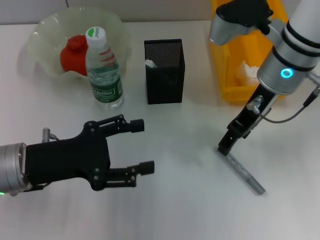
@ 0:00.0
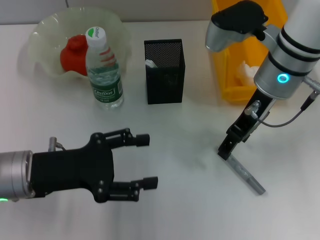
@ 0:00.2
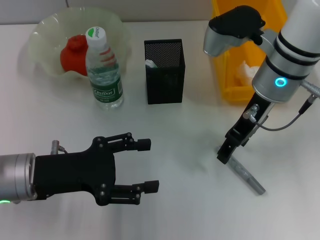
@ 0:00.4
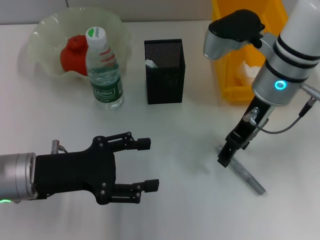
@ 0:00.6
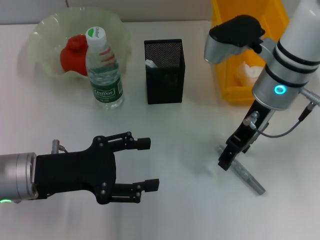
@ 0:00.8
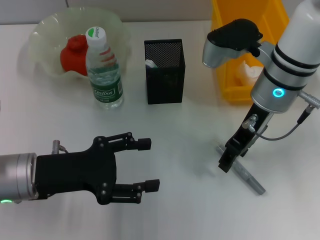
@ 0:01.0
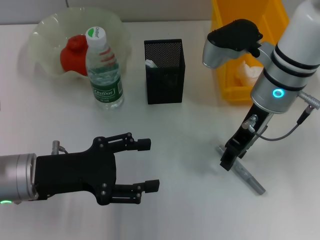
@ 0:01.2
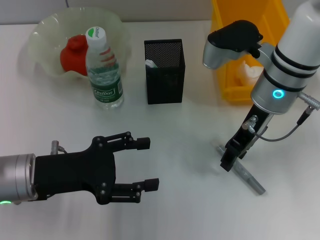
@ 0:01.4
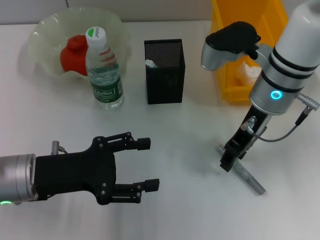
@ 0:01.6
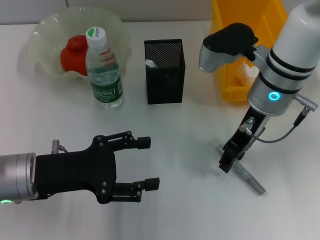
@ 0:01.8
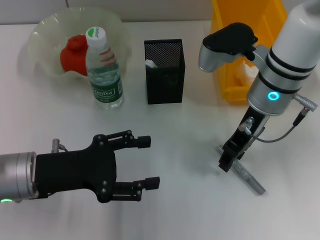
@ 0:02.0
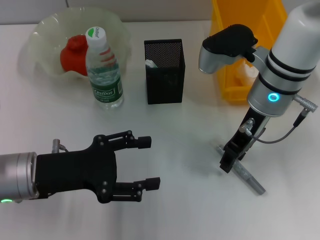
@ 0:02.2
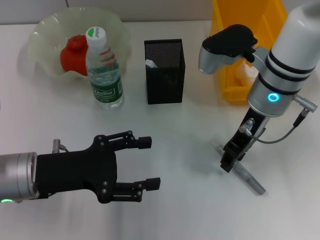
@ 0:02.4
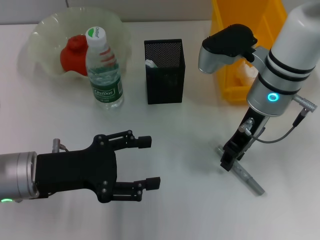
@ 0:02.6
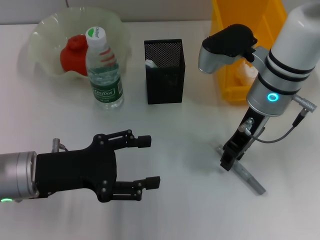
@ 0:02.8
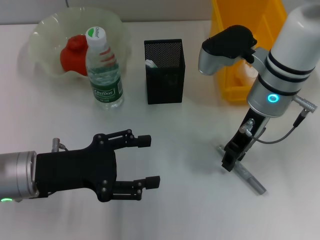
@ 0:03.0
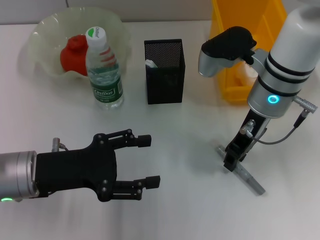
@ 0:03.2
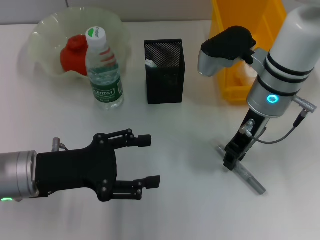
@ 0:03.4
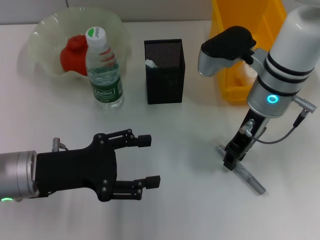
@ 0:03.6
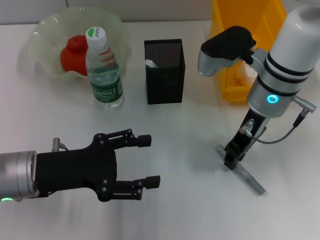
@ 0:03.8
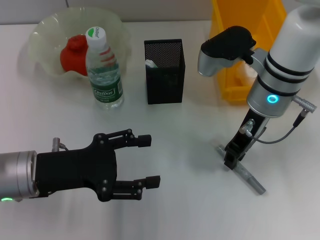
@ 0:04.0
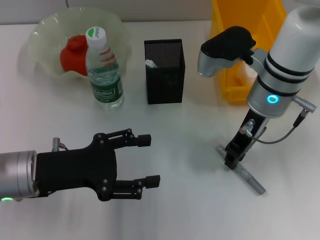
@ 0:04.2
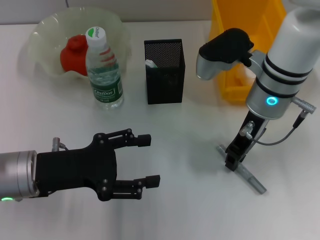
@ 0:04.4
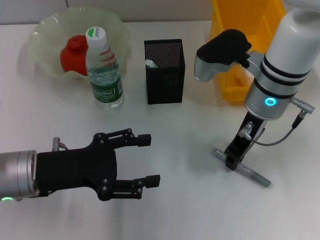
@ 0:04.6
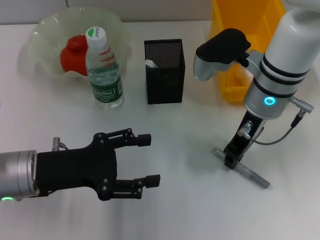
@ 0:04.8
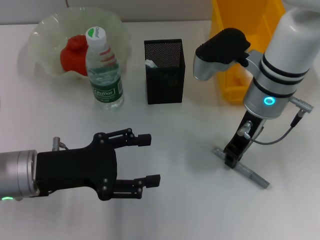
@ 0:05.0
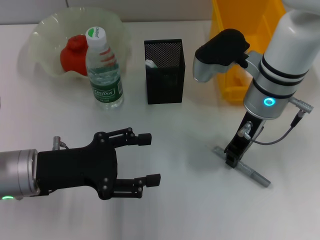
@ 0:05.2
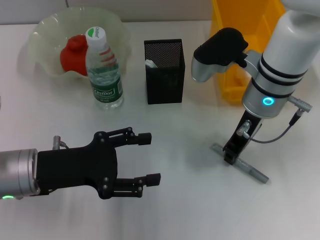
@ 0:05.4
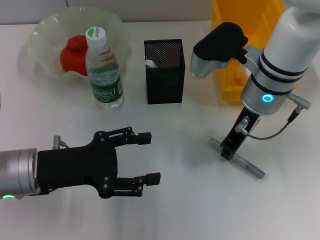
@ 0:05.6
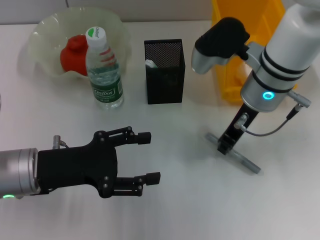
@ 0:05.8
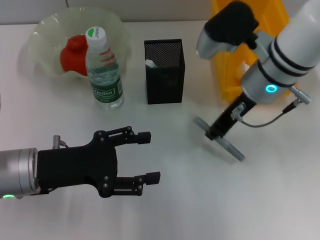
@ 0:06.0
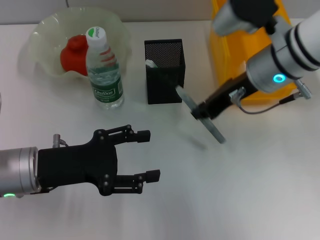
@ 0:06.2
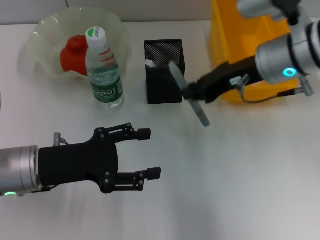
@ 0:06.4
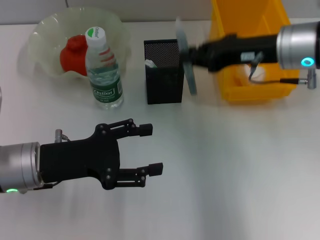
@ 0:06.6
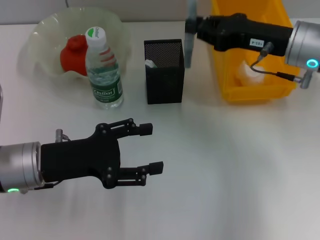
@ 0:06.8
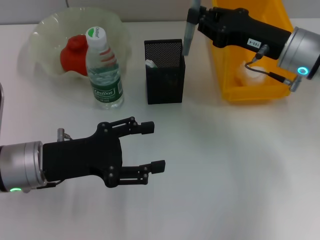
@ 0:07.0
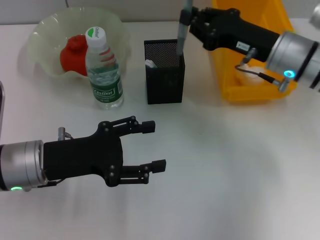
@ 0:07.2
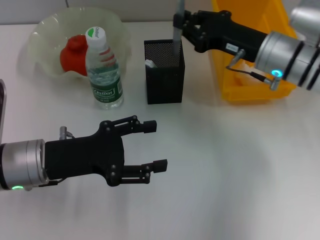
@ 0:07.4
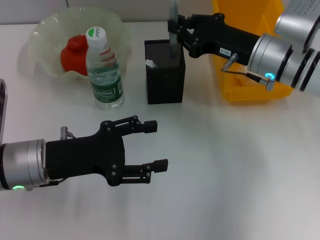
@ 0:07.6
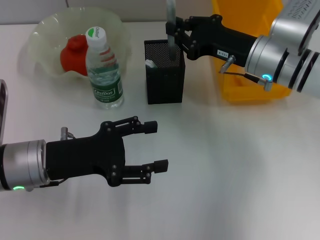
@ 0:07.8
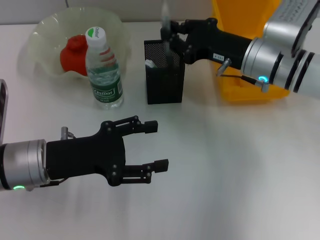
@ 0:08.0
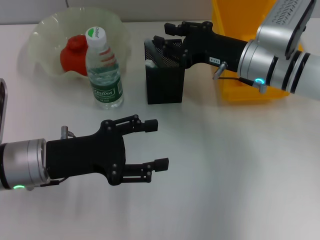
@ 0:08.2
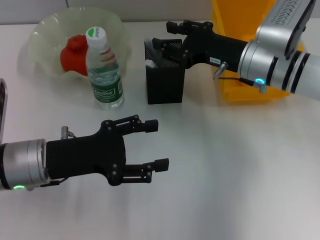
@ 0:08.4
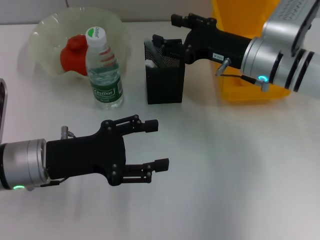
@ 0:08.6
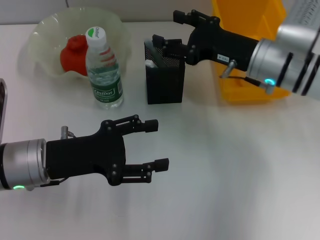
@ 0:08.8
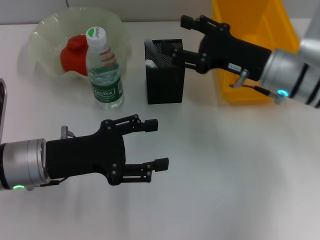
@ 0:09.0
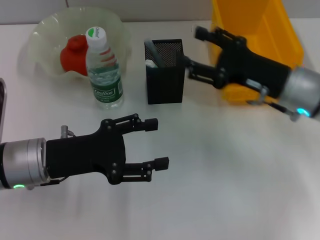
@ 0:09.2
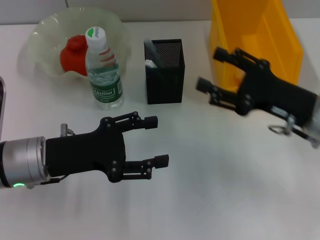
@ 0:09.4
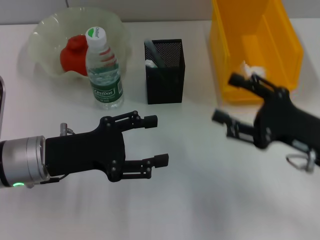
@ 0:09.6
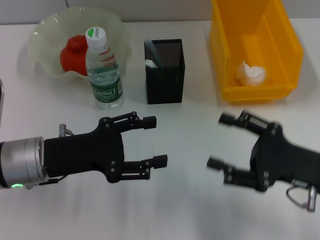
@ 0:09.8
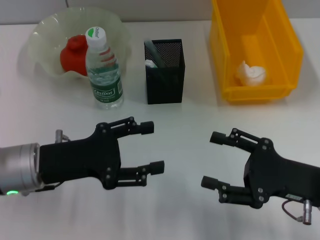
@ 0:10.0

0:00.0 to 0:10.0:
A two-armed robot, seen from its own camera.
Step, 0:00.0 to 0:05.4: Grab the gray glue with the right hand.
Step, 0:05.6 to 0:08.8: Place the gray glue into the pen holder with the right hand.
0:01.4 to 0:04.2: The two grippers keep their place.
0:04.2 to 0:05.8: The grippers make only small movements.
0:05.8 to 0:07.2: The right gripper moves to the right, some 5 cm.
0:07.2 to 0:08.6: The right gripper opens up.
0:08.6 to 0:10.0: The right gripper shifts about 20 cm backward and to the right, and opens up.

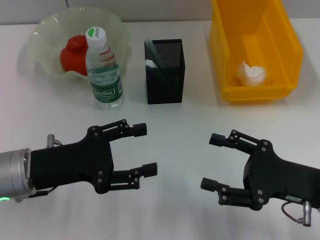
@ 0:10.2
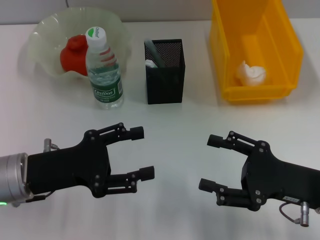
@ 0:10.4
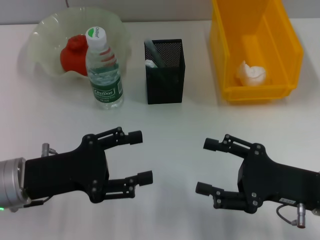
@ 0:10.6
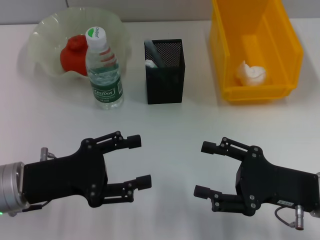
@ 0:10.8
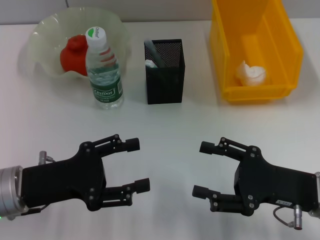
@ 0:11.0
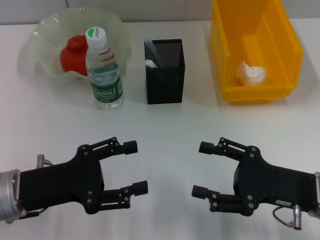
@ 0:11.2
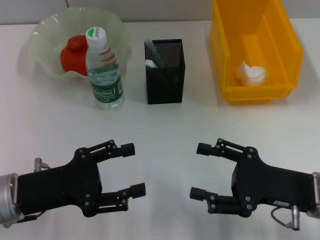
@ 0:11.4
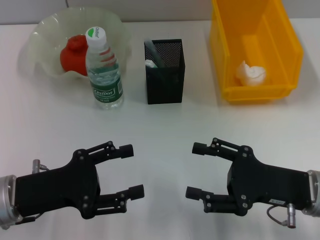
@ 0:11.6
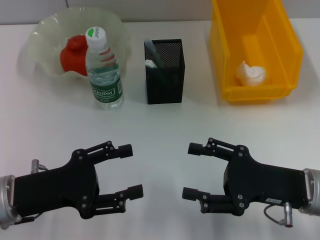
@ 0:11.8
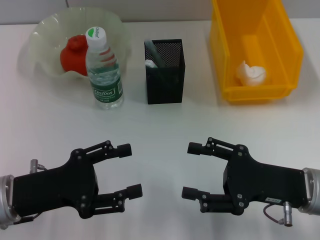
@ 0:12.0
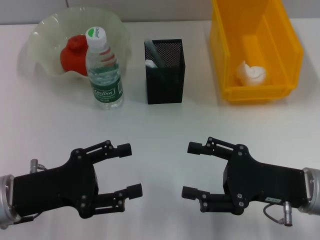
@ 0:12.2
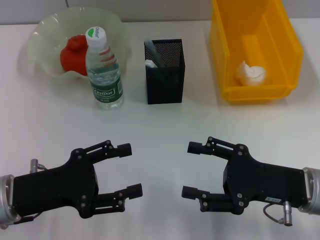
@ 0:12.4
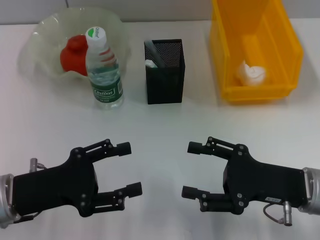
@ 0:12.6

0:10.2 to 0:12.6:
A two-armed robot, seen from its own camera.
0:10.2 to 0:11.4: There are only small adjustments of the grippers.
0:11.4 to 0:12.6: The two grippers keep their place.
